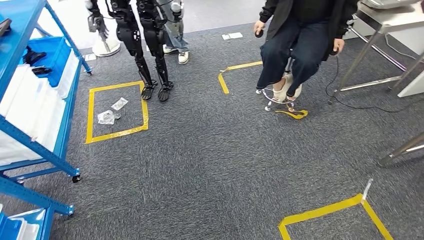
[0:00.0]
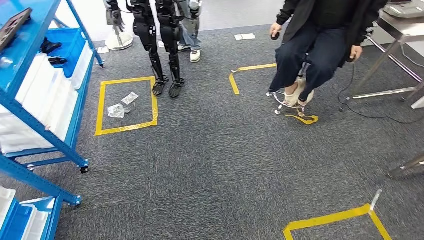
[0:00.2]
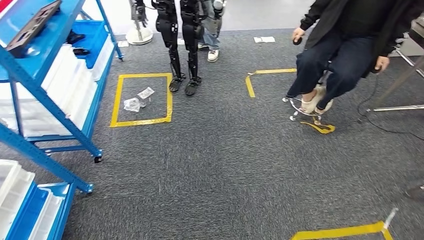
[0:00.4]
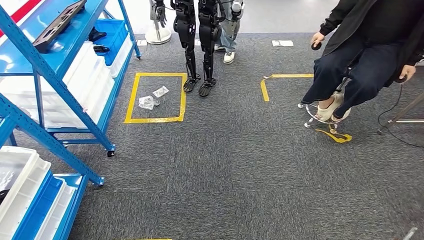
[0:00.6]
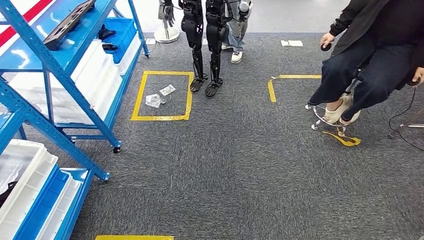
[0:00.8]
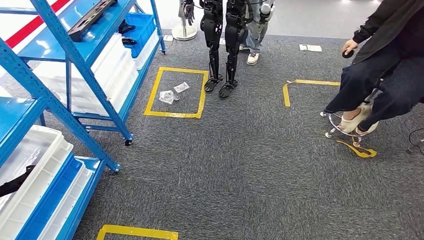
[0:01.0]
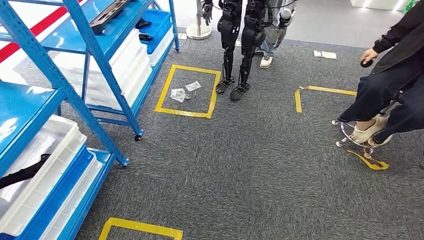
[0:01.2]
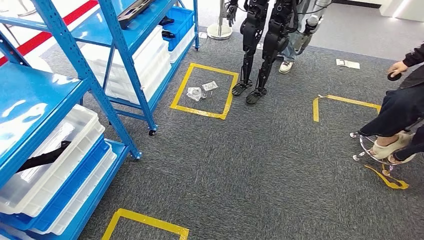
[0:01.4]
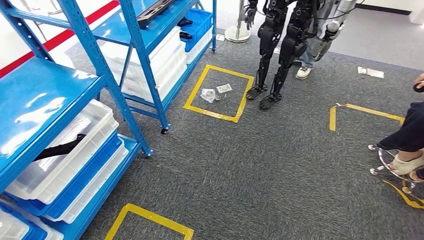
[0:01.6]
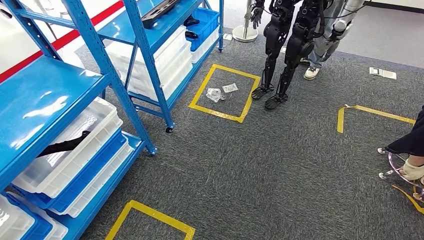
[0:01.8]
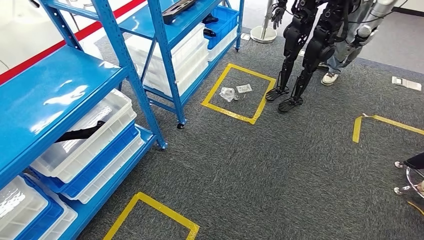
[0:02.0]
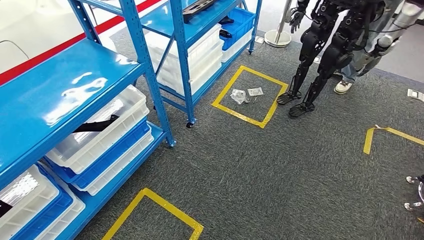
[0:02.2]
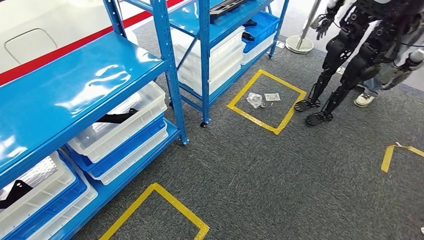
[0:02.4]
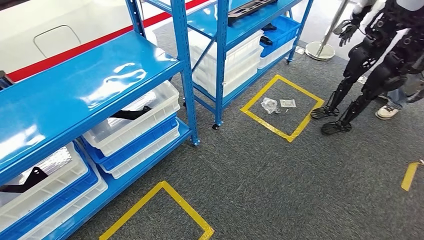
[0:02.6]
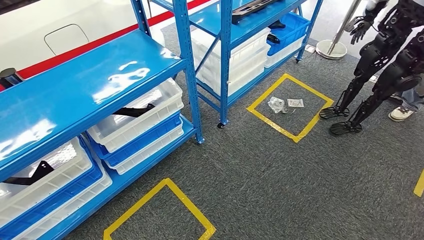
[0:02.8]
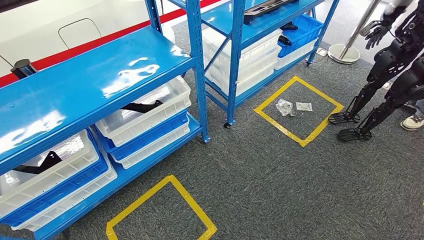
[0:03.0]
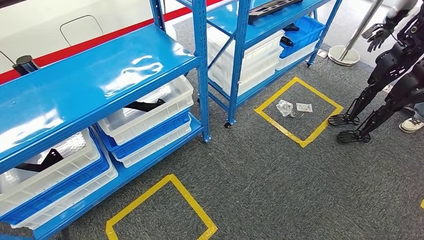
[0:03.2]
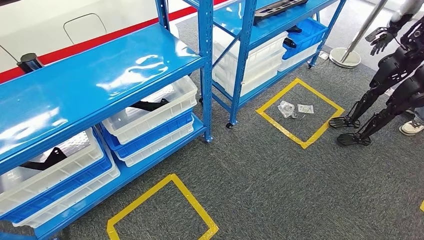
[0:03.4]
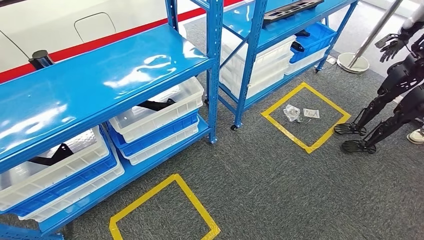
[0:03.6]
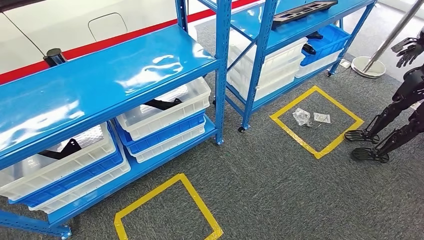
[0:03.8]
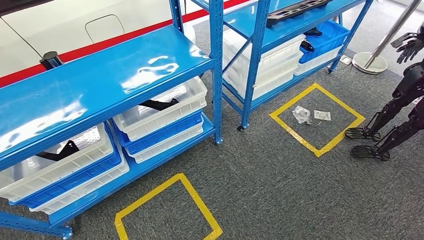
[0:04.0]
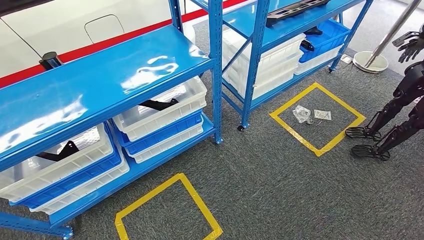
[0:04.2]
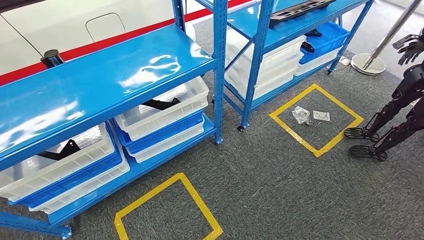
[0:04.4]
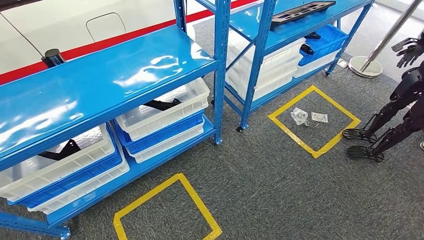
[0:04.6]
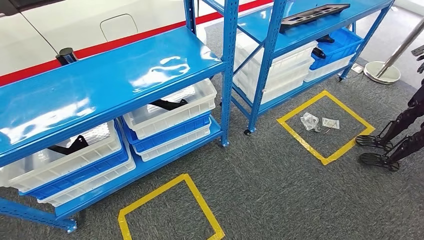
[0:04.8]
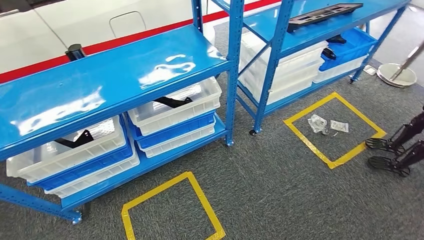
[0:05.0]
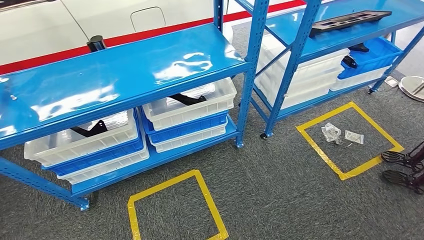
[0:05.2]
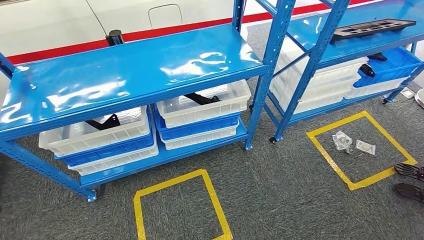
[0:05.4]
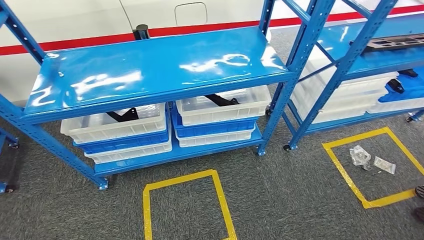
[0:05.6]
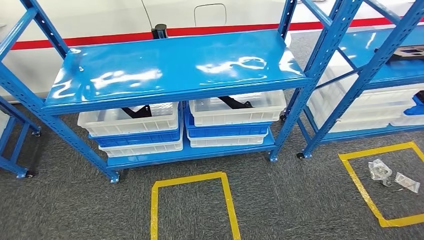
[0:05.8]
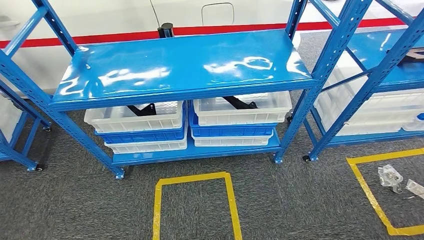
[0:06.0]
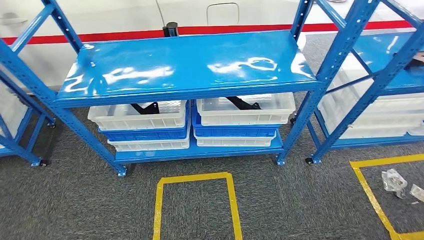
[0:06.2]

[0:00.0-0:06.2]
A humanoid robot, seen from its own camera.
Step, 0:00.0 to 0:06.2: Move to the initial position of the shelf.

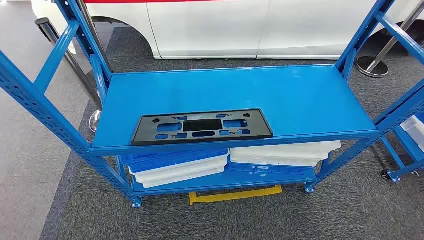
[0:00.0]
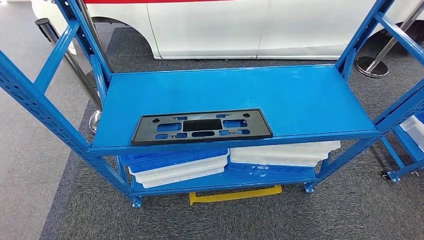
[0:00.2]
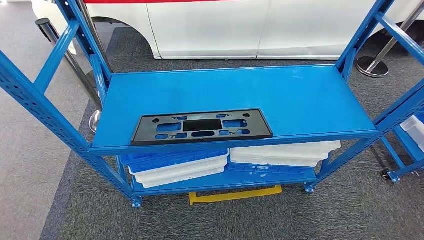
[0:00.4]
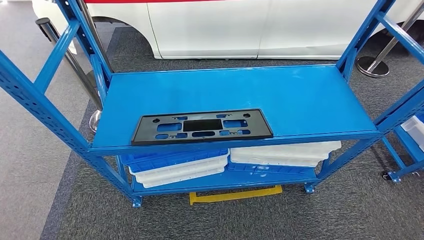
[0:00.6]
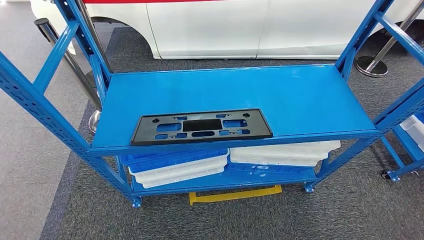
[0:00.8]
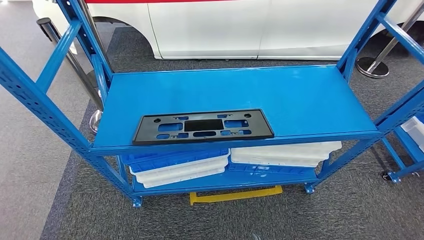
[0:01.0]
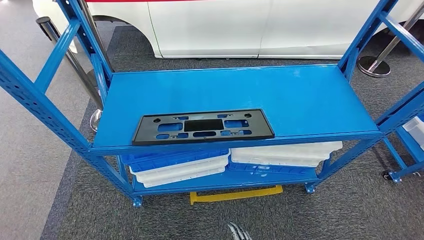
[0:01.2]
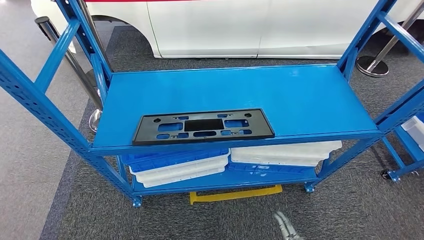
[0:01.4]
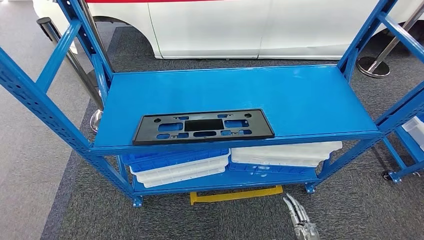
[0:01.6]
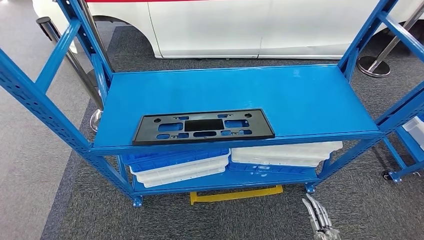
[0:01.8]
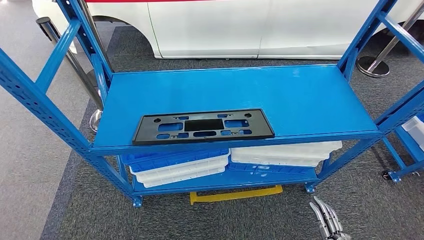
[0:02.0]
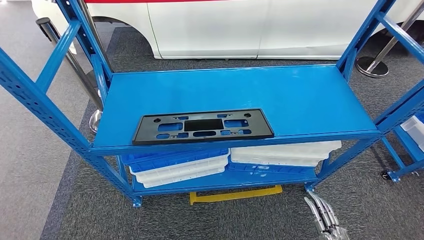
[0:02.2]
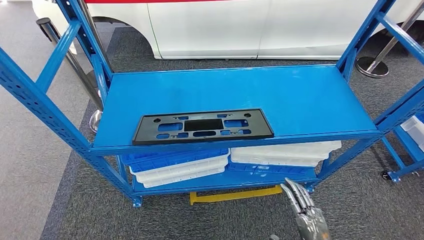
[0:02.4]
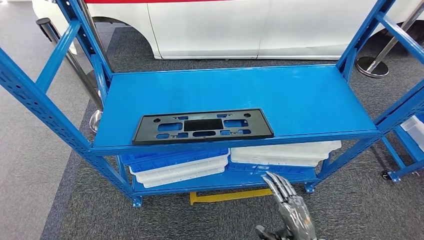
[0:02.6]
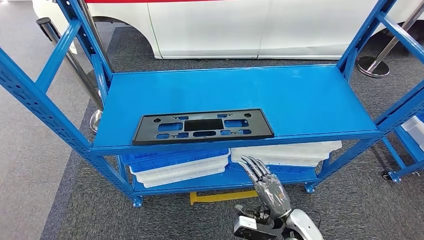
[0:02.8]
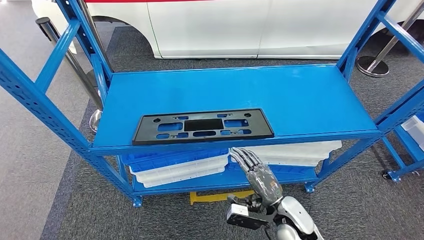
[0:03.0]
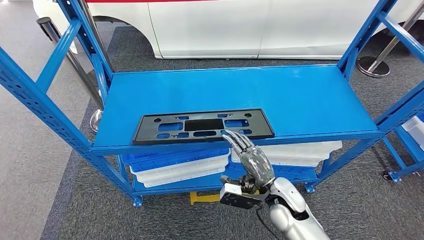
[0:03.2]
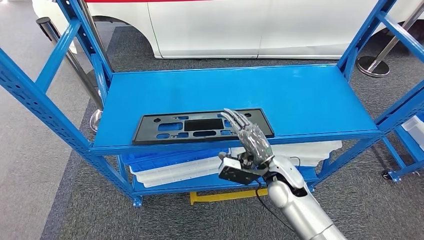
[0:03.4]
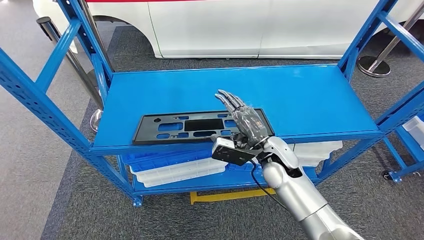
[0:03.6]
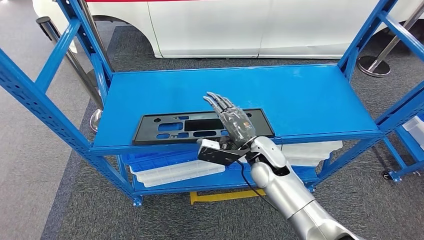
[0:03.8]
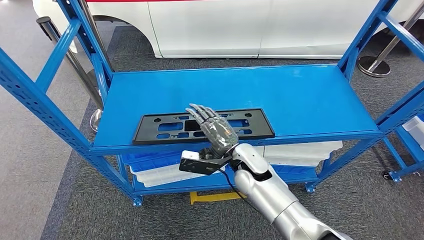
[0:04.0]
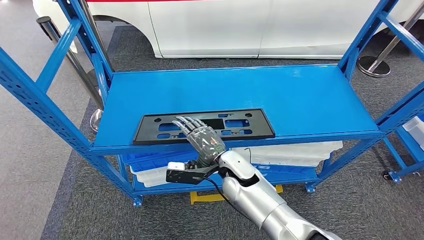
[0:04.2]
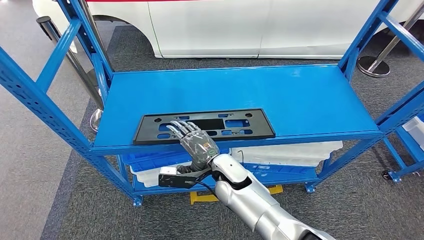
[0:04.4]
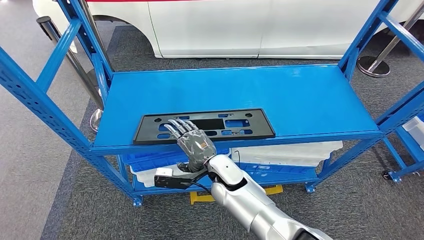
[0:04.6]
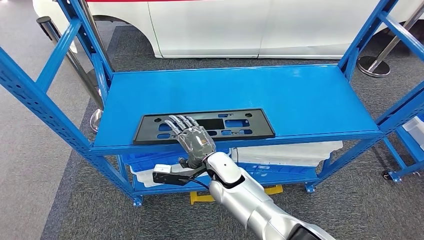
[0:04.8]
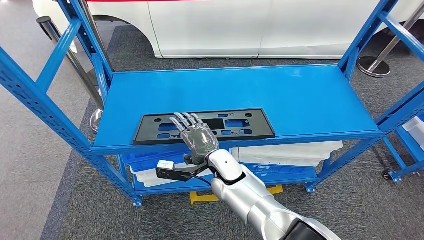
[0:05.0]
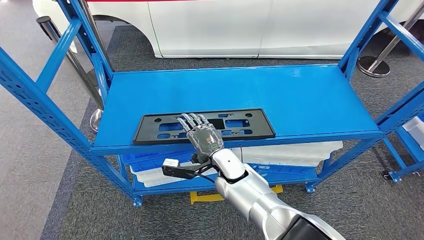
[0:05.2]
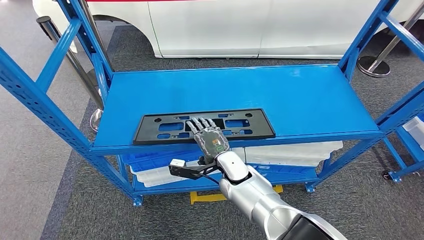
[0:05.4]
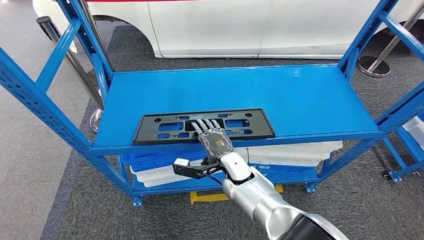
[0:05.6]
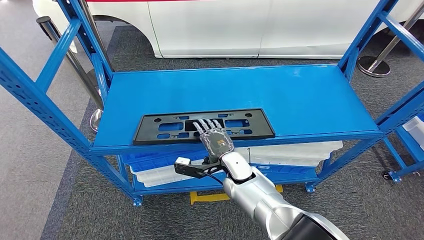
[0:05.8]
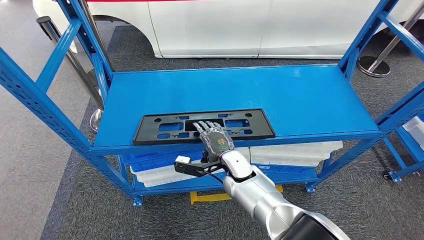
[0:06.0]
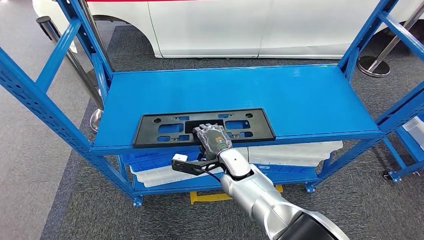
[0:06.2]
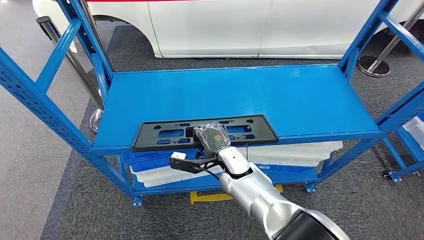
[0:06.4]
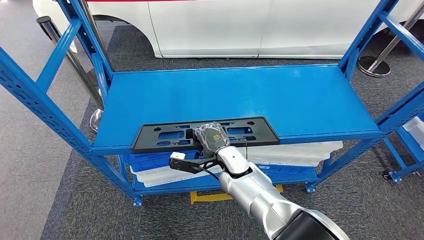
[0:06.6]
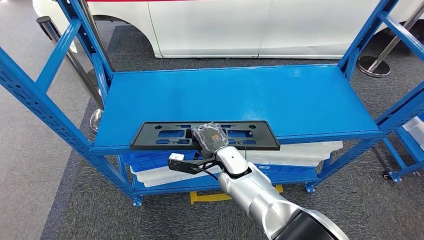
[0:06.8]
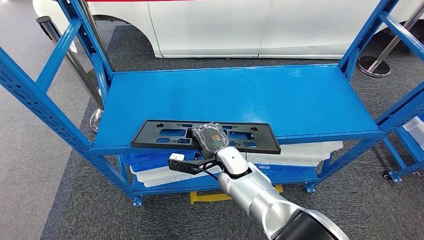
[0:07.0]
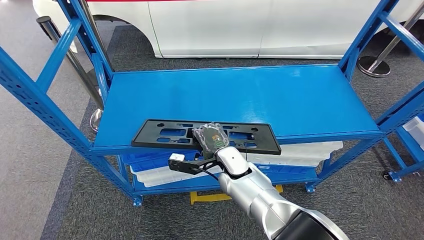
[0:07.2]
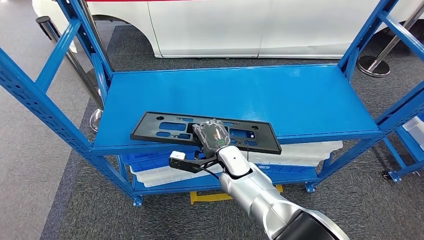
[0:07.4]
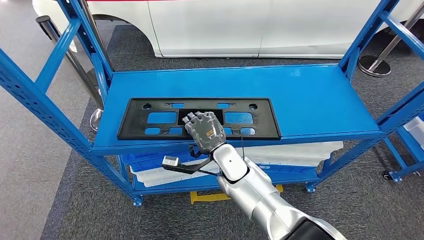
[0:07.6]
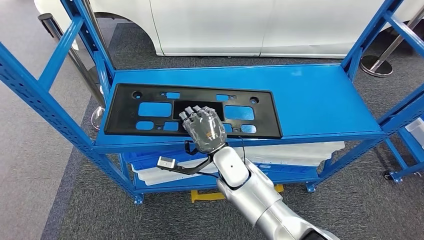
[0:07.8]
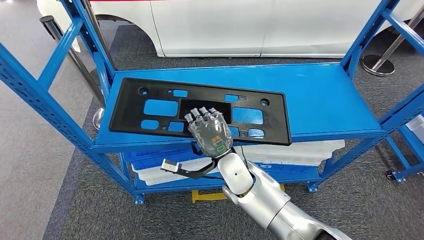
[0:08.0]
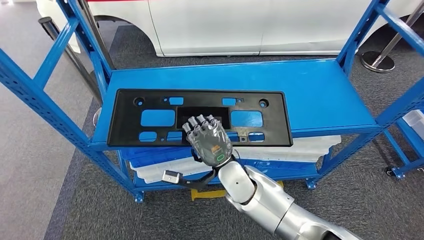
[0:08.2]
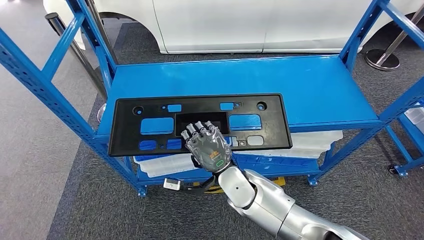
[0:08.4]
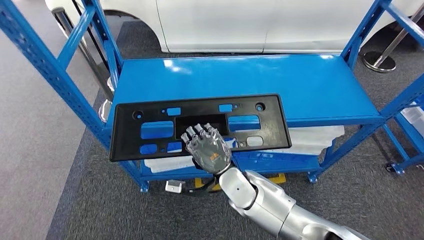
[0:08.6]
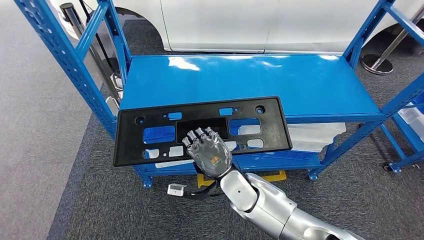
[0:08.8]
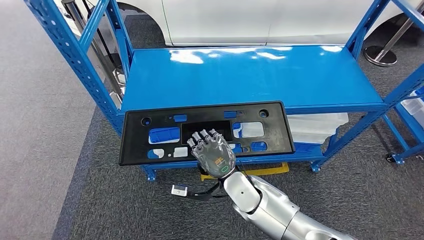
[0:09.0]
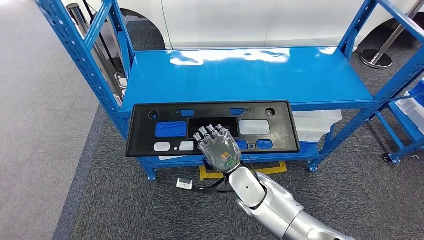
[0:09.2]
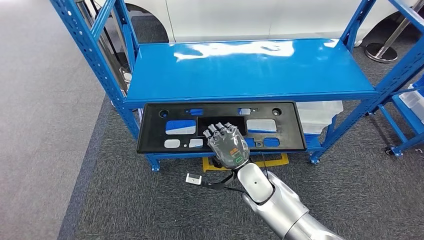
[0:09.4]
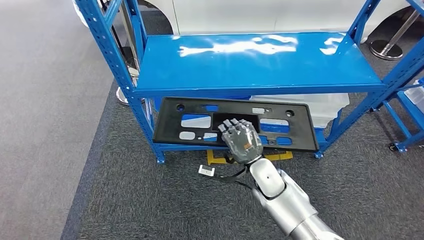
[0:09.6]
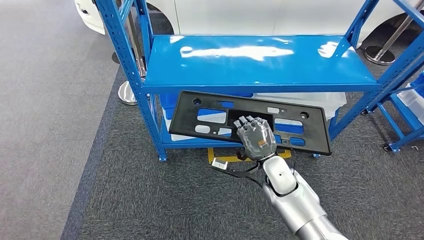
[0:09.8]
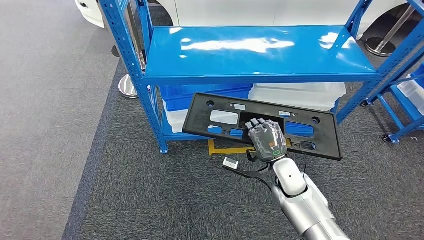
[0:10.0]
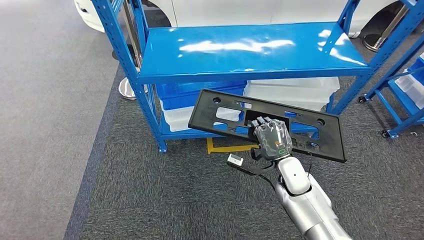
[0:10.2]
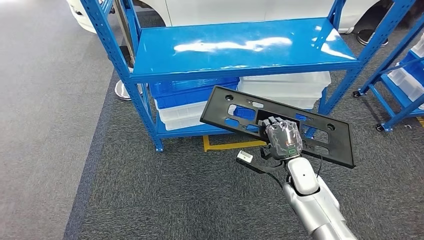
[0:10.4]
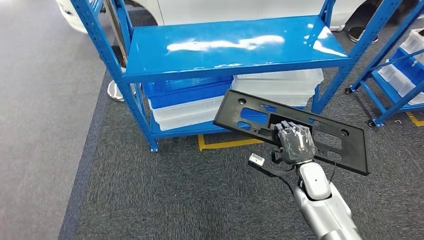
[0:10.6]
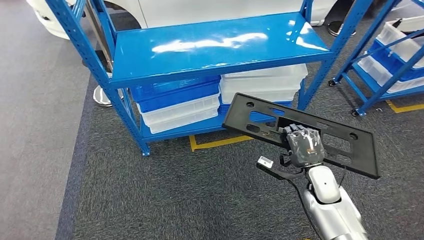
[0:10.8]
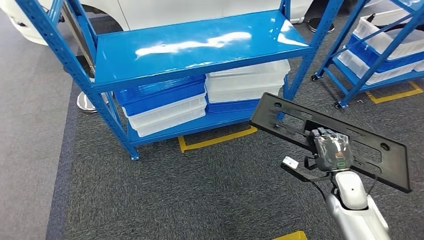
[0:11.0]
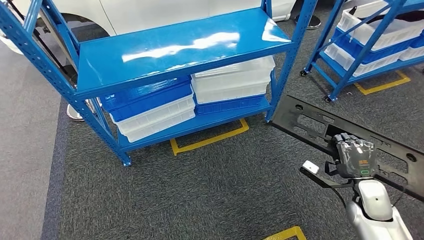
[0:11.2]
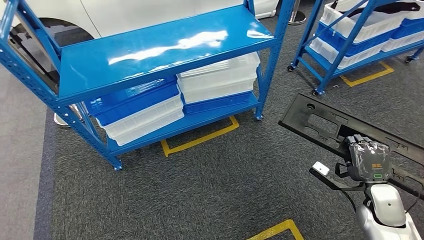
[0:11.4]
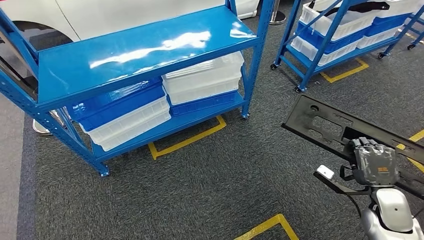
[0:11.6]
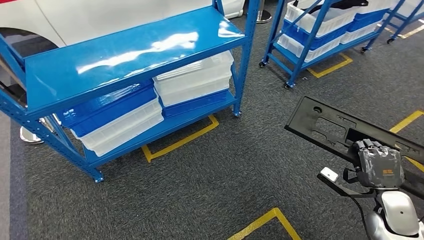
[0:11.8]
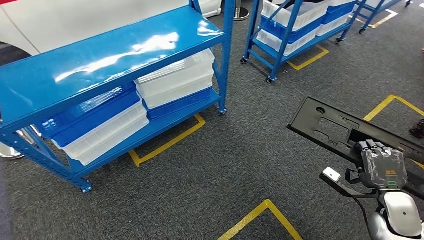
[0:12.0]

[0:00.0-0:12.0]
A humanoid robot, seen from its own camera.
Step, 0:00.0 to 0:07.6: Pick up the large material from the shelf.
0:01.6 to 0:03.0: The right hand travels forward, to the left and upward by approximately 20 cm.
0:03.0 to 0:04.4: The right hand moves to the left and forward, roughly 20 cm.
